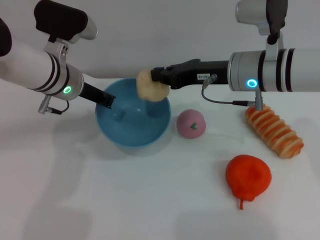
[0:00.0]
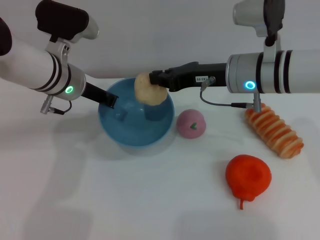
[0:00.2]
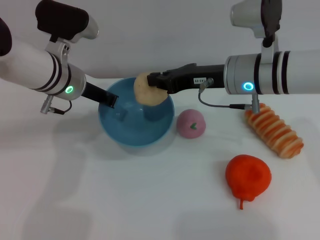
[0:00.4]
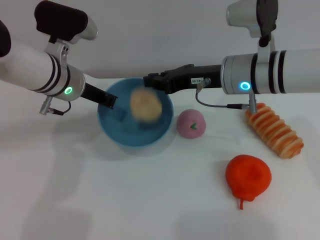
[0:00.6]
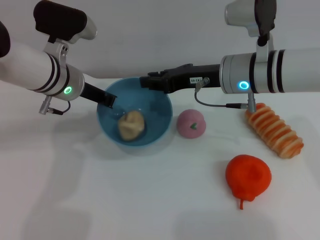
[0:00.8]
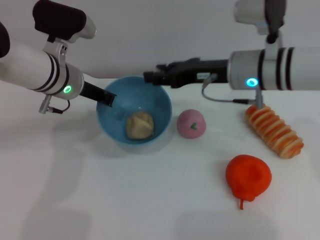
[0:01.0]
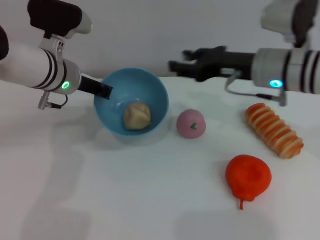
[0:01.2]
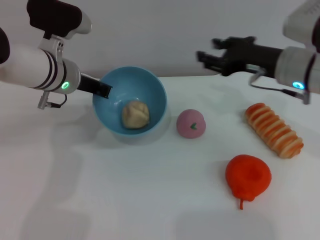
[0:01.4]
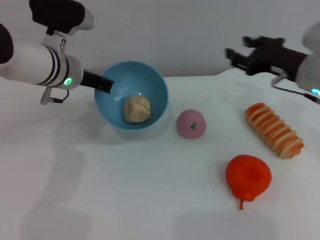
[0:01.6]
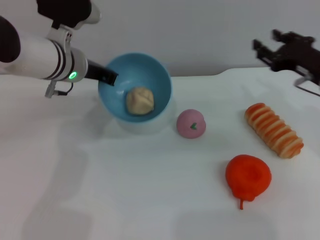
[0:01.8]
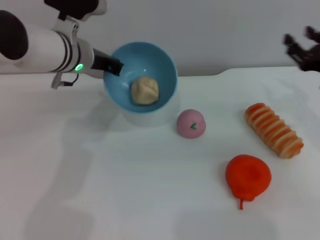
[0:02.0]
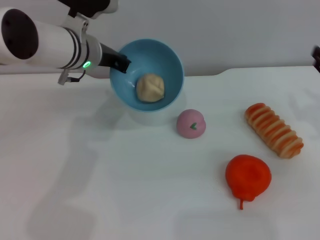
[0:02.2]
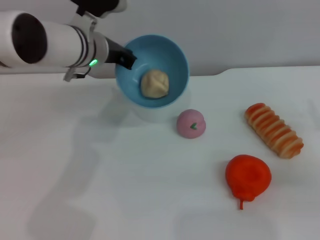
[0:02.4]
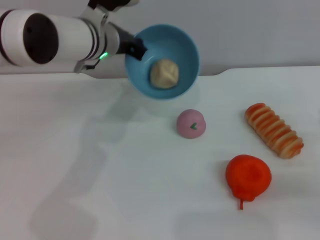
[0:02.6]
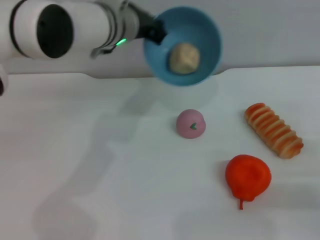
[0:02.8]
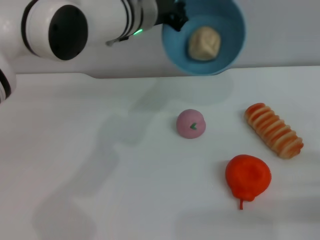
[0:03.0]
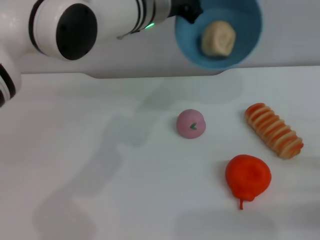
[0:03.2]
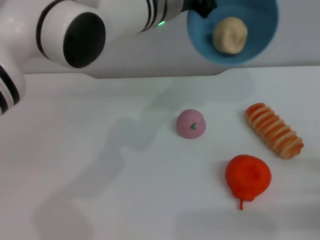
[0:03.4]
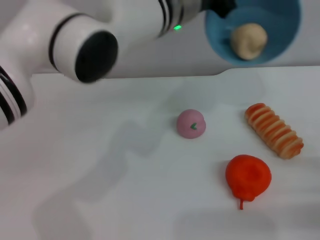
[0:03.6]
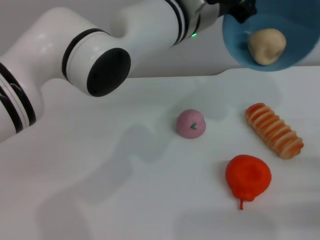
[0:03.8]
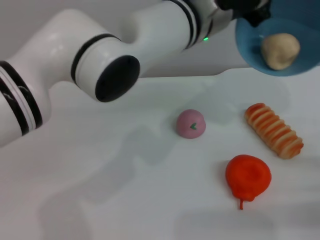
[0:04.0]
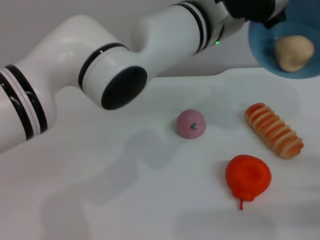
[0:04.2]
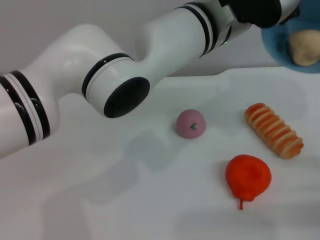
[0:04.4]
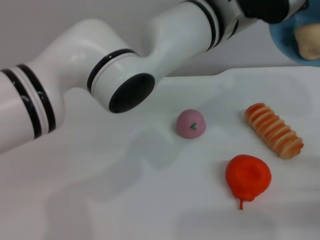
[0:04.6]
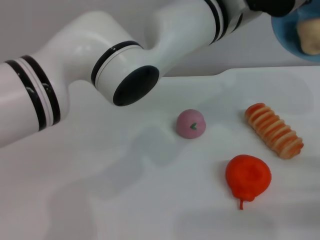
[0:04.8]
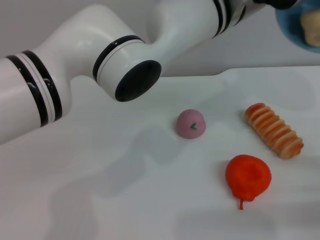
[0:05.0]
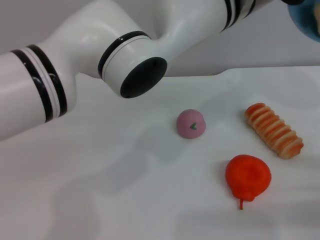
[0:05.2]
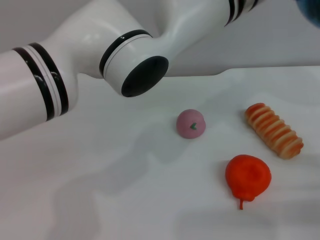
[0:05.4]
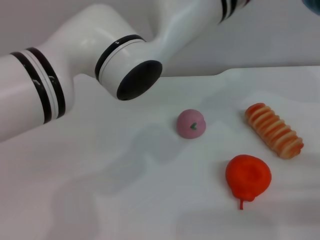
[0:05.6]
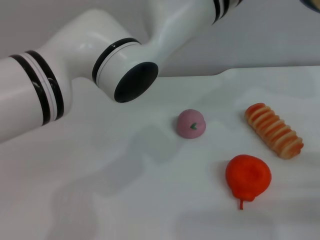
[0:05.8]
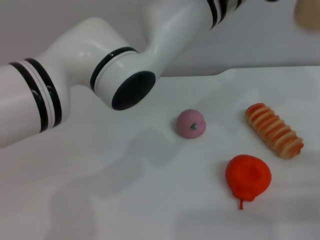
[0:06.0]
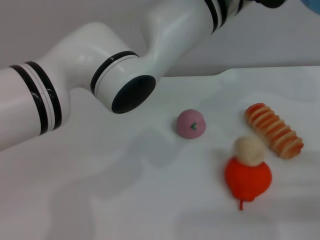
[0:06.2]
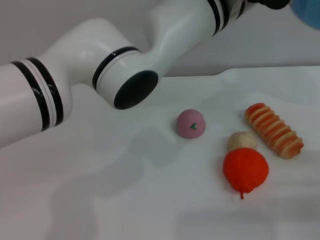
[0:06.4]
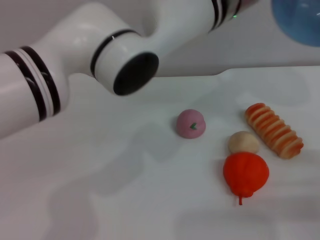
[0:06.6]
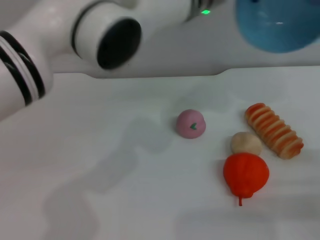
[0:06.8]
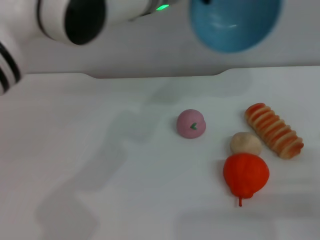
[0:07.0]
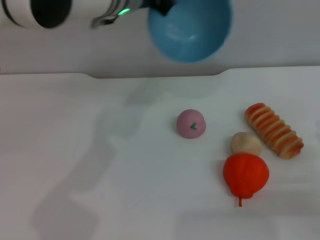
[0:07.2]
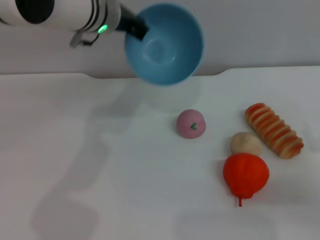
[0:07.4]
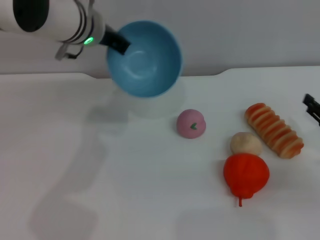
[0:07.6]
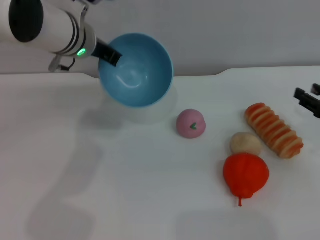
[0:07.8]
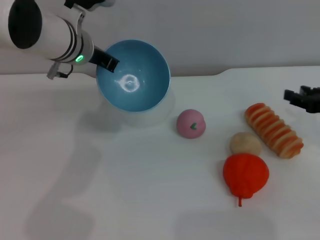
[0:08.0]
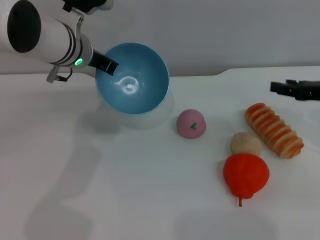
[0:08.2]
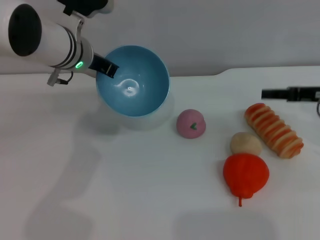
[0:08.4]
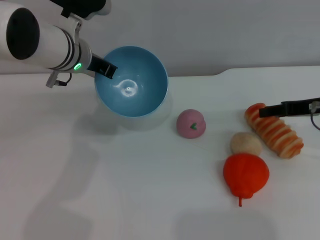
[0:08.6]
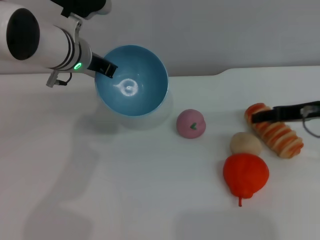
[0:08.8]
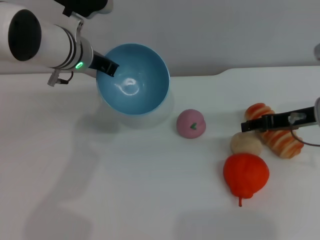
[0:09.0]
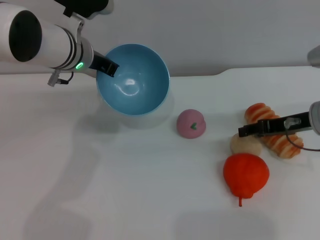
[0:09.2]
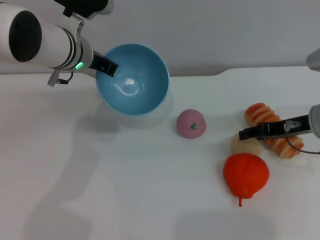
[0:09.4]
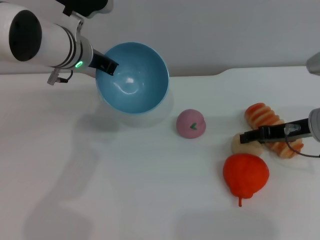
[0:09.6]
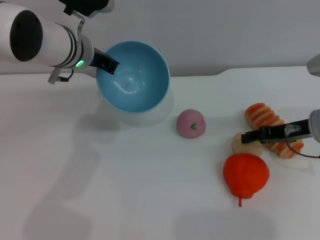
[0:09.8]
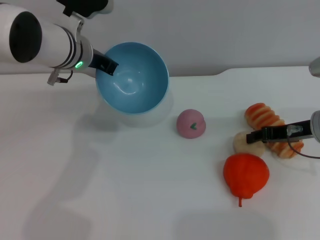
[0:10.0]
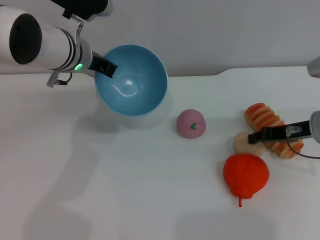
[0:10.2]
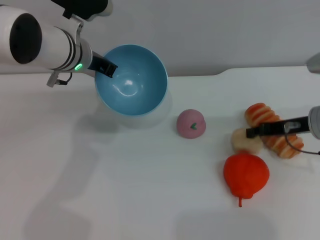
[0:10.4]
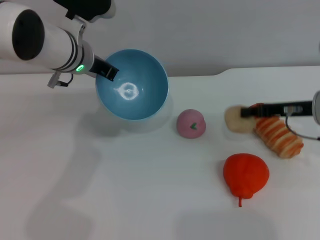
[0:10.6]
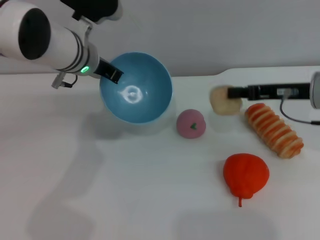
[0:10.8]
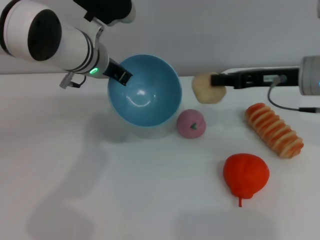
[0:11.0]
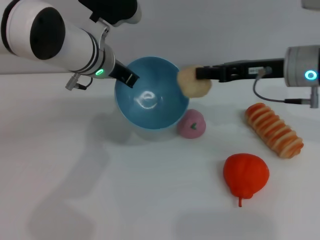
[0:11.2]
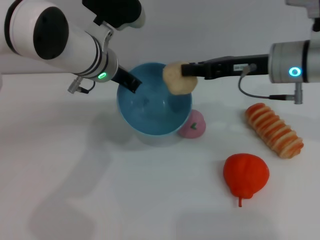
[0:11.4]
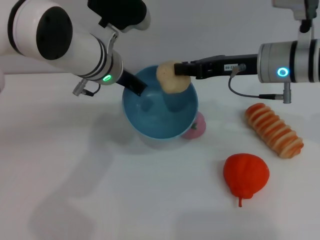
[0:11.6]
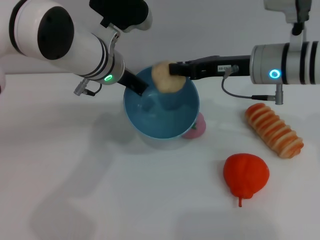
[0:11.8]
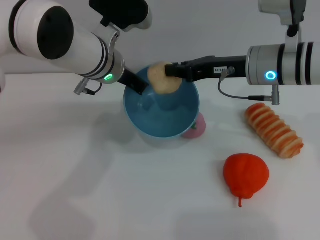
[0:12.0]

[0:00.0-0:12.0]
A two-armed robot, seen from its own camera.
Task of the whole recording: put the egg yolk pastry into the blue bowl and pour it out repeatedly.
Step, 1.2 to 6.4 s: Pour the egg yolk pastry out of bowl.
Step, 6.8 to 10.8 s: Pick up the egg yolk pastry with the right gripper.
0.0 to 1.6 s: The right gripper heads to the right, covering some 10 cm, and opens its fingers.
1.6 to 3.0 s: The left gripper is displaced to the right and upward by roughly 15 cm. Meanwhile the right gripper goes approximately 25 cm backward, to the right and downward.
3.0 to 4.4 s: The left gripper goes approximately 10 cm to the right and backward.
4.4 to 6.0 s: There are only small adjustments of the grippers.
6.0 to 7.6 s: The left gripper shifts roughly 15 cm to the left. The right gripper travels forward by some 5 cm.
7.6 to 9.0 s: The right gripper goes approximately 15 cm forward, to the left and upward.
9.0 to 10.4 s: The right gripper closes.
10.4 to 12.0 s: The left gripper changes place by roughly 5 cm. Meanwhile the right gripper goes some 10 cm to the left and upward.

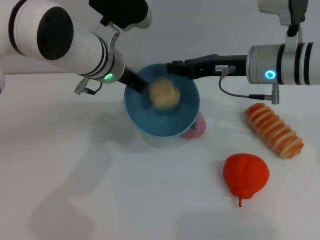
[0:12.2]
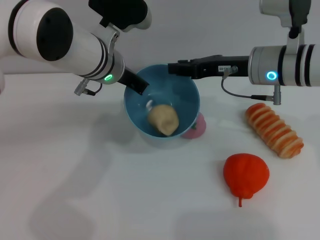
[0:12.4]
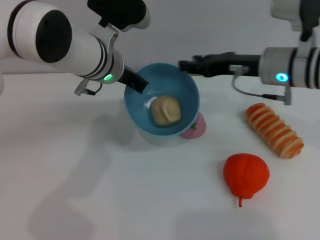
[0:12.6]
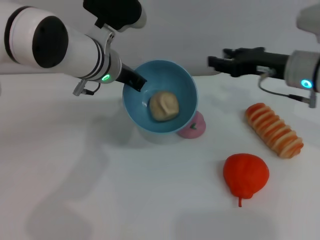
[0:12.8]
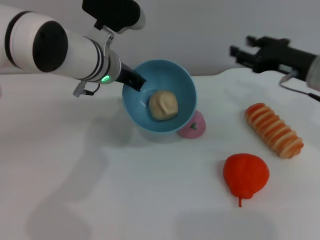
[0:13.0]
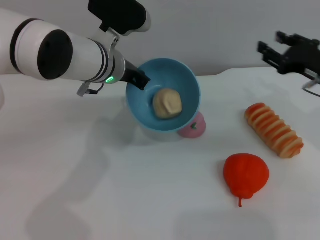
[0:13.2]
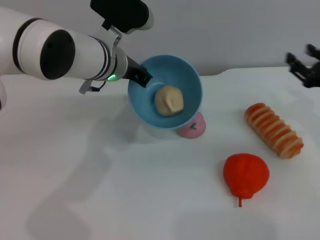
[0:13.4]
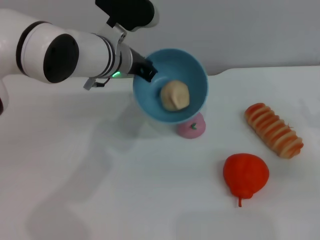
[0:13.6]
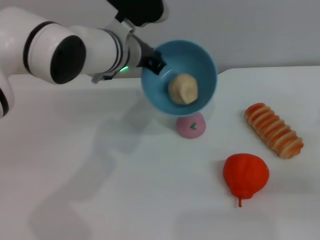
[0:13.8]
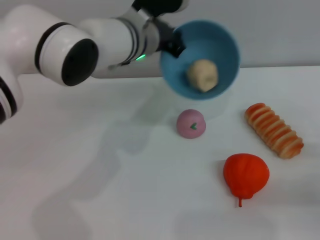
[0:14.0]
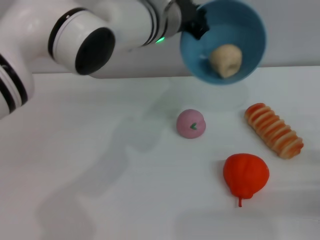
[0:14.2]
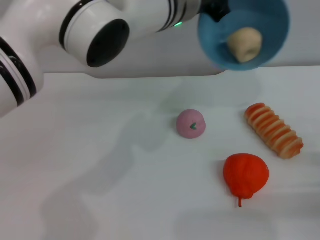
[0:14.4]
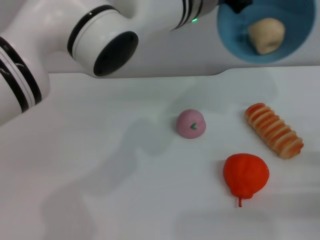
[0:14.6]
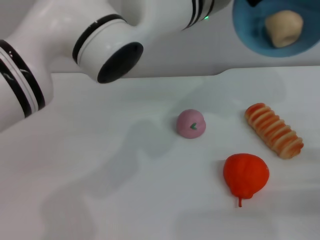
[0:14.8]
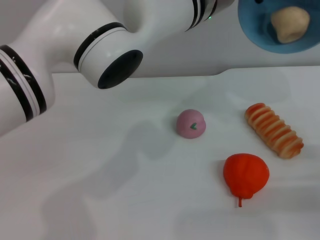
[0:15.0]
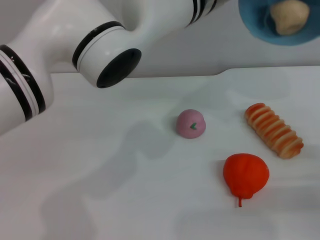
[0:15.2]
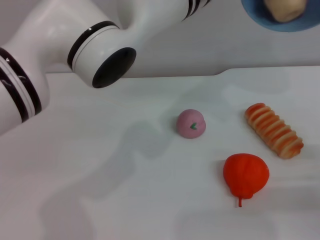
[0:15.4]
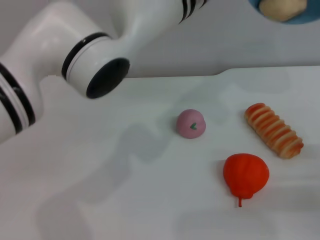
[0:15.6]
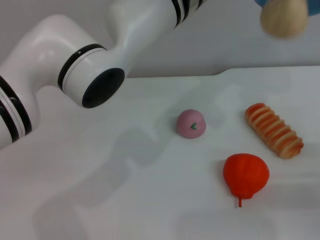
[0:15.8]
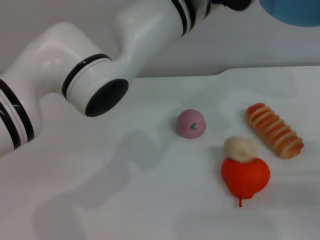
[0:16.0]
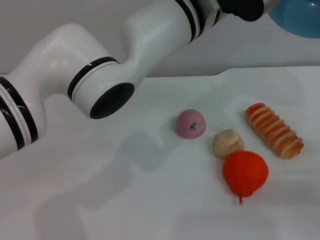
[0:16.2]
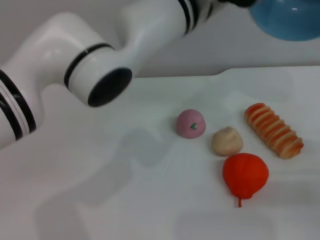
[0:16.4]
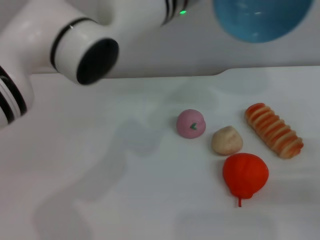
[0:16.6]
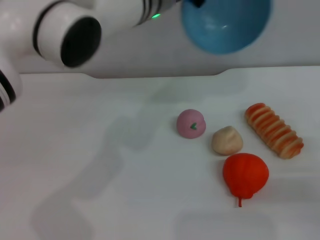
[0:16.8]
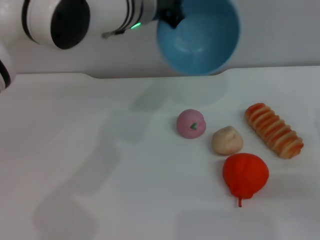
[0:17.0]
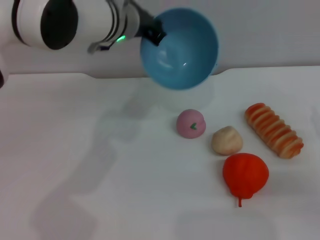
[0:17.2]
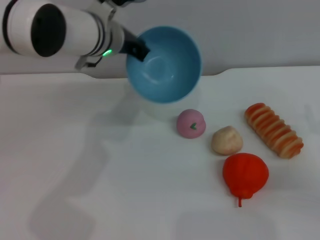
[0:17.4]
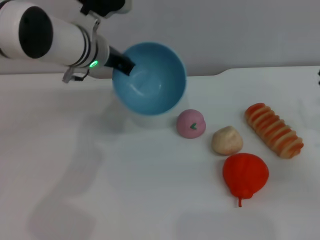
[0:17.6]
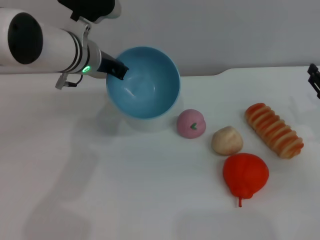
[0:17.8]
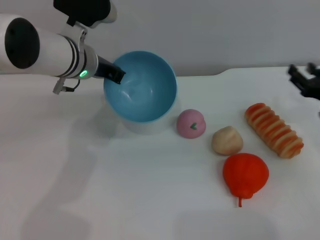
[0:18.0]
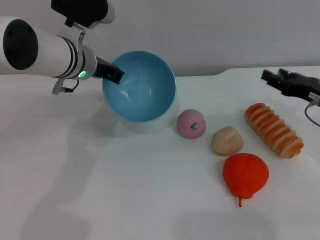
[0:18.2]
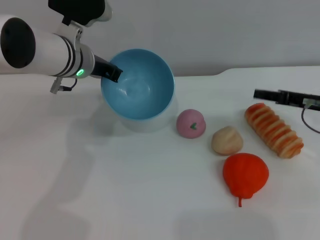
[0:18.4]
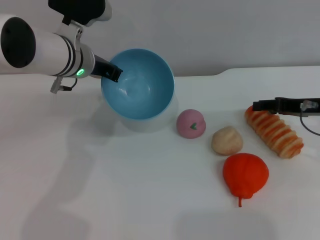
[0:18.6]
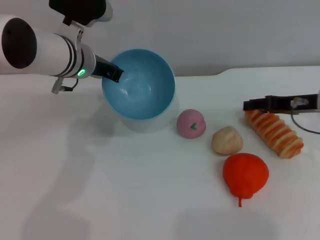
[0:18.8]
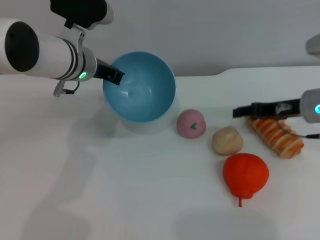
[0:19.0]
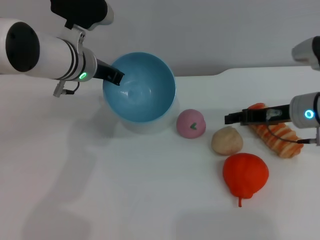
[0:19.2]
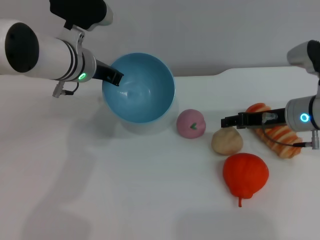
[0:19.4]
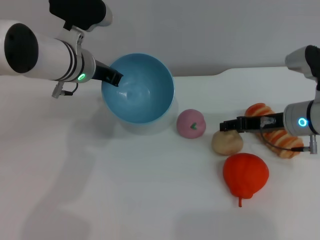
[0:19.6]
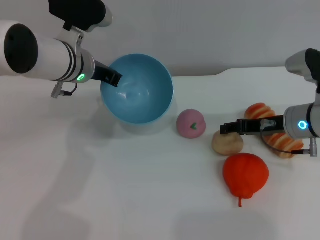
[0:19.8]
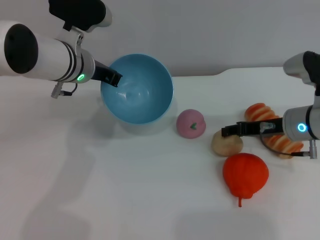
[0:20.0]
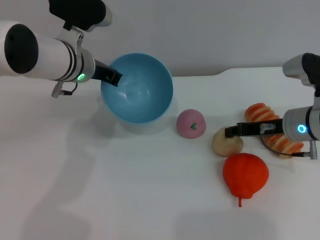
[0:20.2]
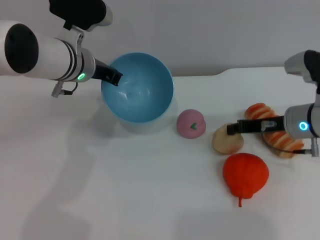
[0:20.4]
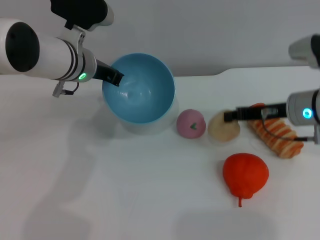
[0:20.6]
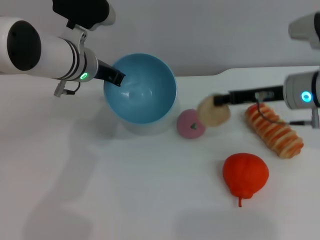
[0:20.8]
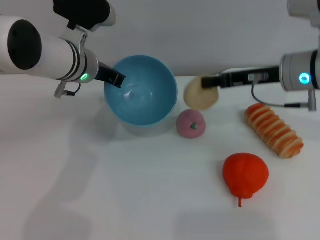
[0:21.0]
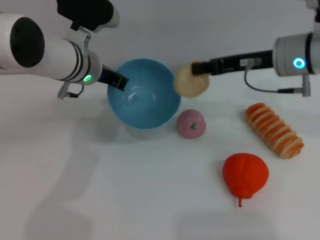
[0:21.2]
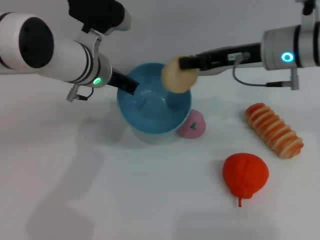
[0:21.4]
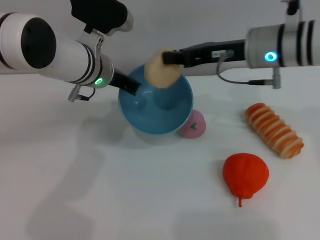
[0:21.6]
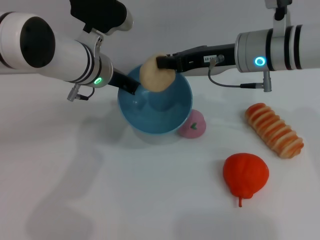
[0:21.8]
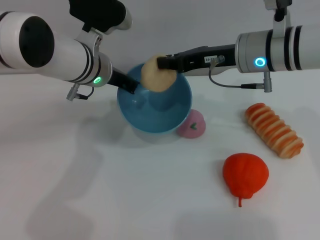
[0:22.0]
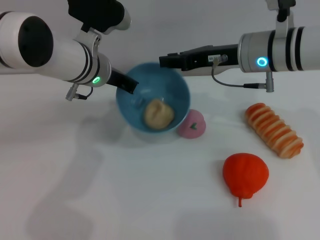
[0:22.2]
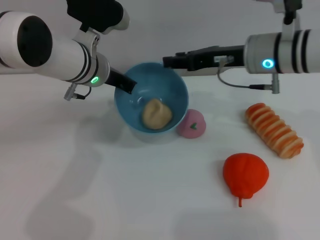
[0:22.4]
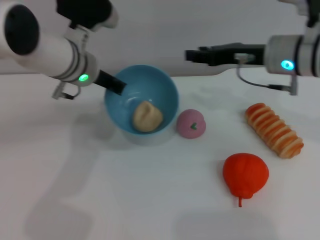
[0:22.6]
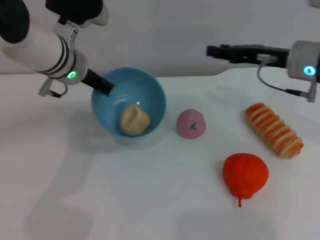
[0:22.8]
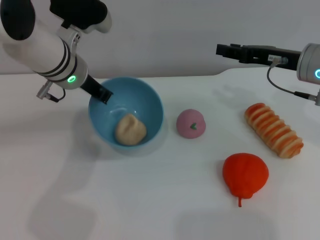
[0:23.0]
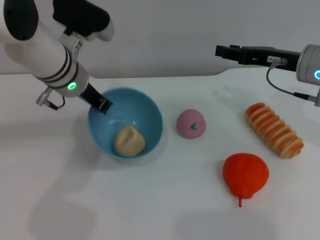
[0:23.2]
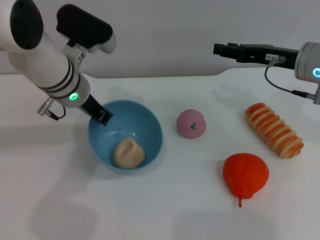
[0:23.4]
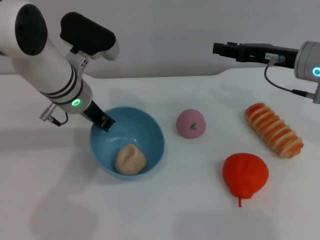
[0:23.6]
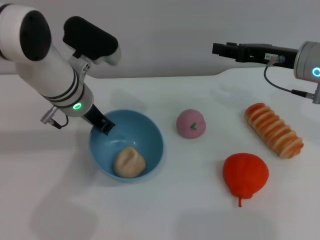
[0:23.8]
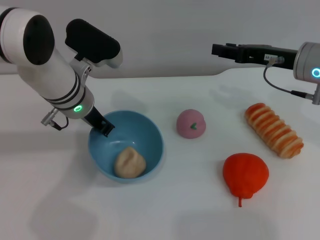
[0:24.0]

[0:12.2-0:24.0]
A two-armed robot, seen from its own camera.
Task of the whole recording: put the egg yolk pastry into the blue bowl and pour it out repeatedly.
Step, 12.8 to 16.4 s: Pour the egg yolk pastry out of bowl.
Step, 16.6 to 21.0 s: Pick up the egg yolk pastry with the right gripper.
Step, 21.2 to 22.4 s: Place the egg yolk pastry into the bowl.
12.2 to 13.6 s: The right gripper travels to the right, backward and downward by about 25 cm, and opens.
13.6 to 15.2 s: The right gripper travels backward by roughly 5 cm, while the left gripper is displaced to the right and upward by approximately 15 cm.
15.2 to 16.6 s: The grippers move only a little.
16.6 to 18.2 s: The left gripper moves to the left and downward, some 15 cm, while the right gripper travels forward, to the left and upward by about 10 cm.
18.2 to 19.6 s: The right gripper shifts about 5 cm to the left.
19.6 to 21.0 s: The right gripper moves upward, about 10 cm, and closes up.
21.0 to 22.6 s: The right gripper opens.
